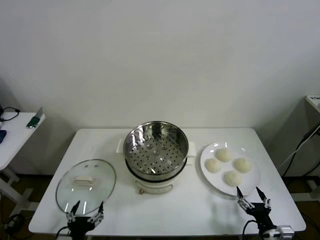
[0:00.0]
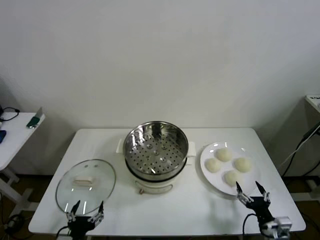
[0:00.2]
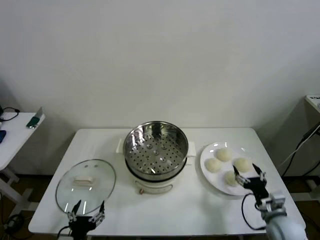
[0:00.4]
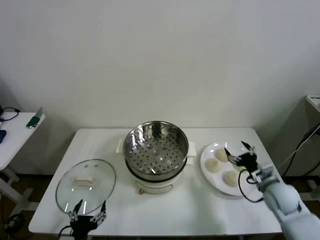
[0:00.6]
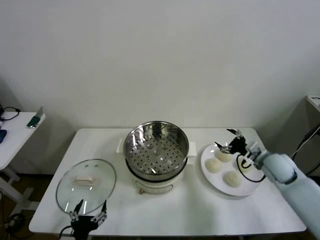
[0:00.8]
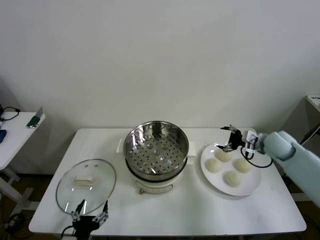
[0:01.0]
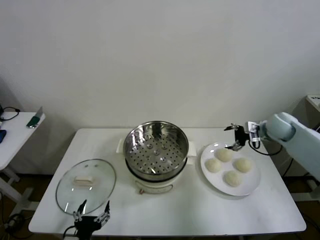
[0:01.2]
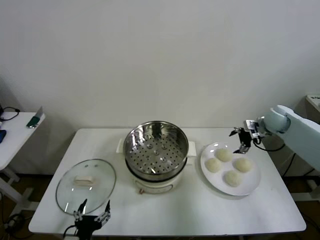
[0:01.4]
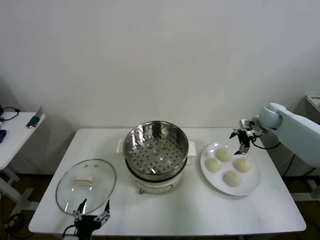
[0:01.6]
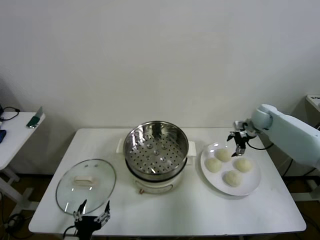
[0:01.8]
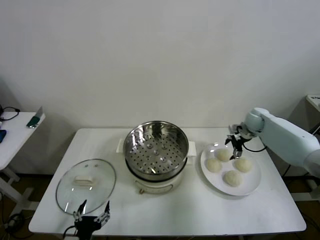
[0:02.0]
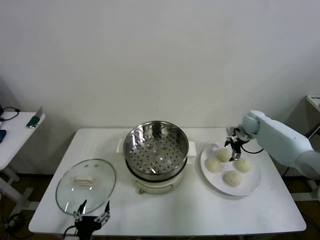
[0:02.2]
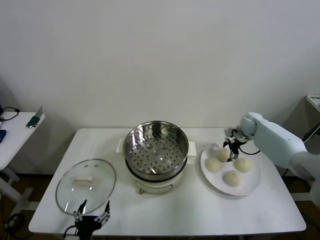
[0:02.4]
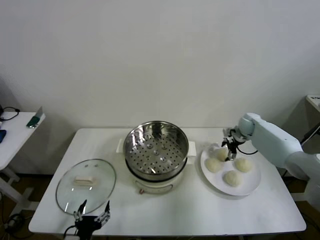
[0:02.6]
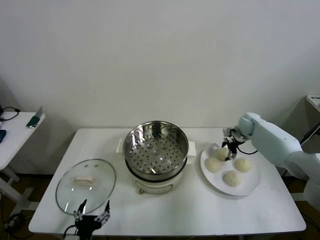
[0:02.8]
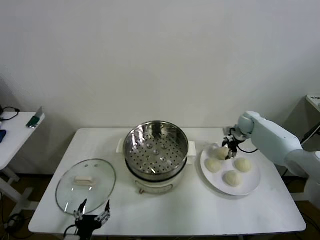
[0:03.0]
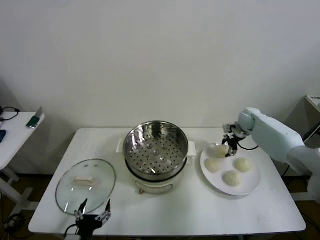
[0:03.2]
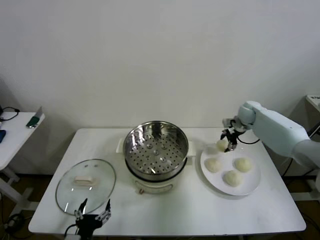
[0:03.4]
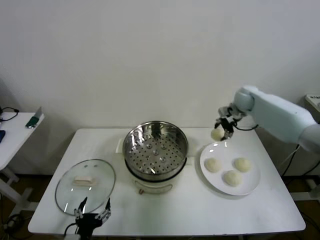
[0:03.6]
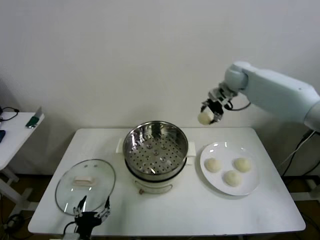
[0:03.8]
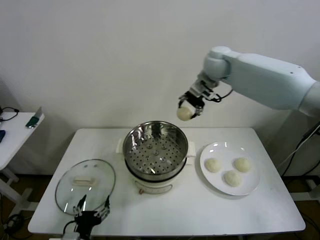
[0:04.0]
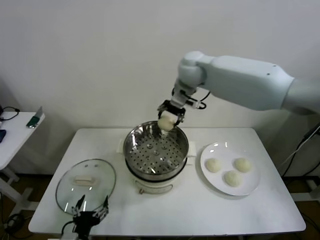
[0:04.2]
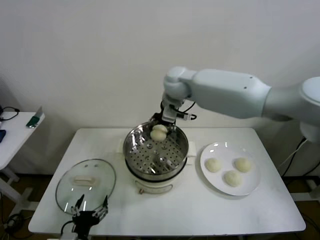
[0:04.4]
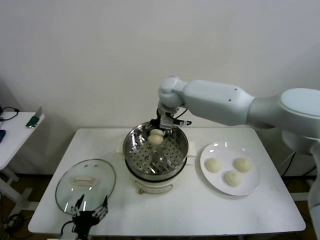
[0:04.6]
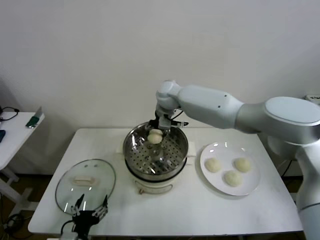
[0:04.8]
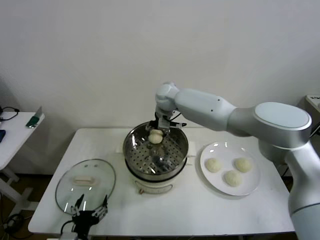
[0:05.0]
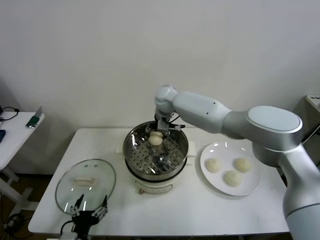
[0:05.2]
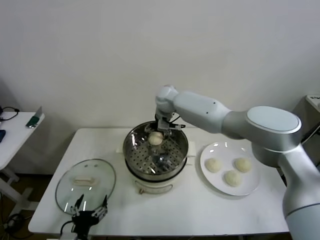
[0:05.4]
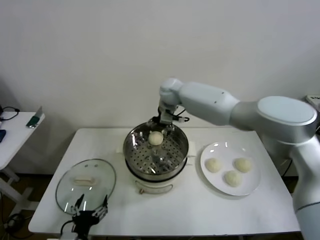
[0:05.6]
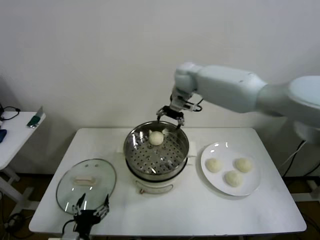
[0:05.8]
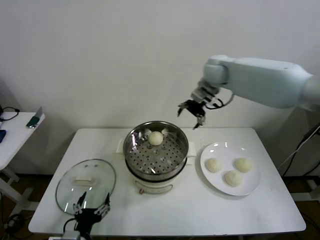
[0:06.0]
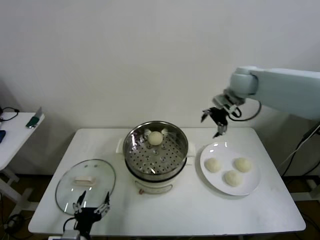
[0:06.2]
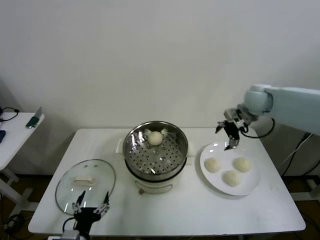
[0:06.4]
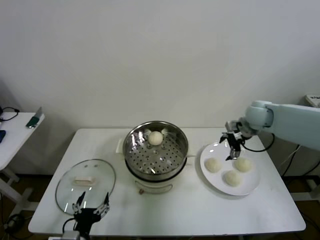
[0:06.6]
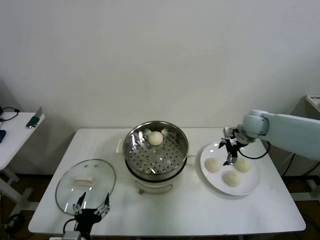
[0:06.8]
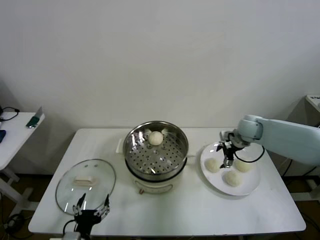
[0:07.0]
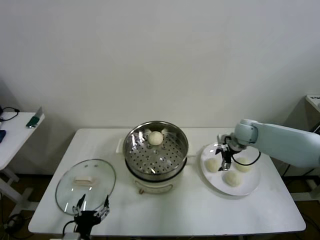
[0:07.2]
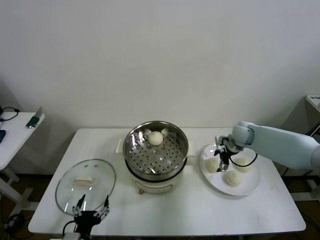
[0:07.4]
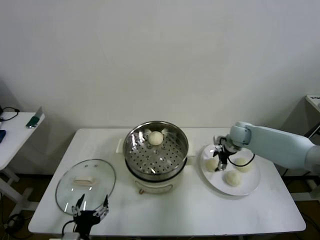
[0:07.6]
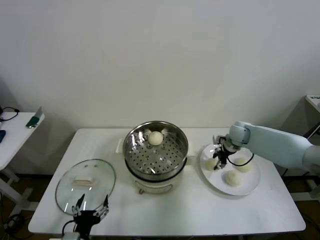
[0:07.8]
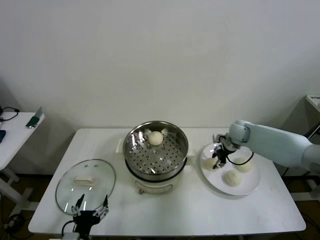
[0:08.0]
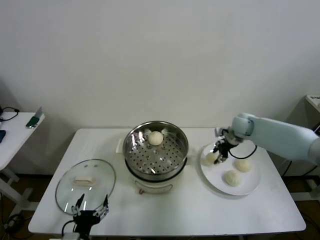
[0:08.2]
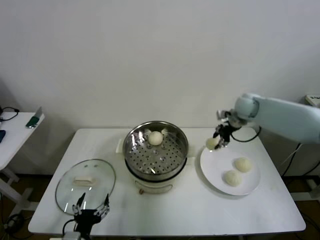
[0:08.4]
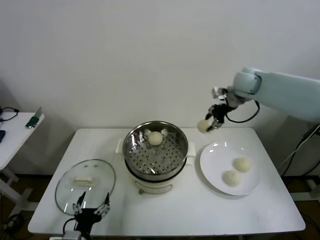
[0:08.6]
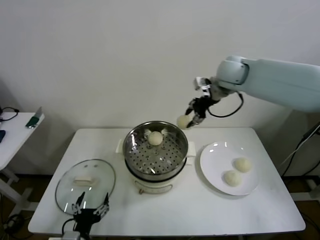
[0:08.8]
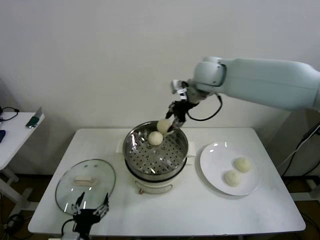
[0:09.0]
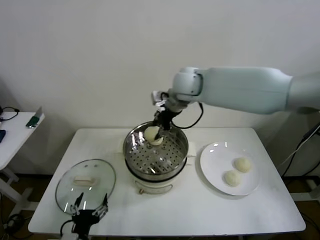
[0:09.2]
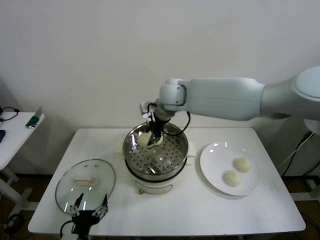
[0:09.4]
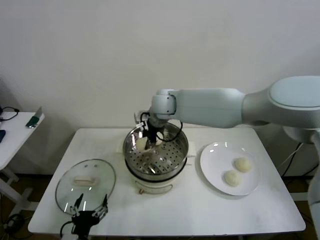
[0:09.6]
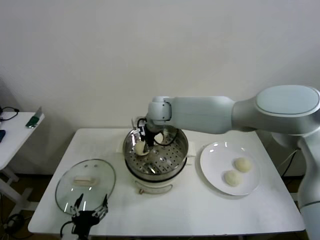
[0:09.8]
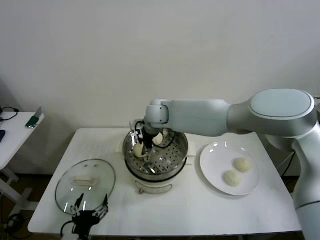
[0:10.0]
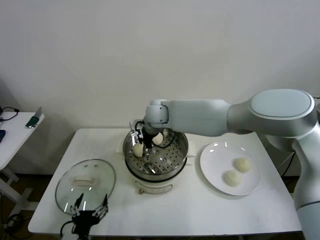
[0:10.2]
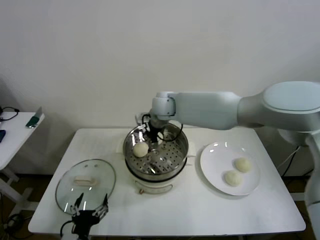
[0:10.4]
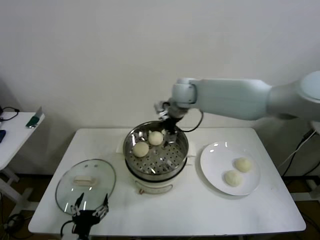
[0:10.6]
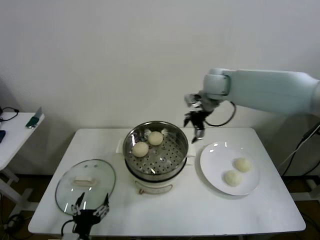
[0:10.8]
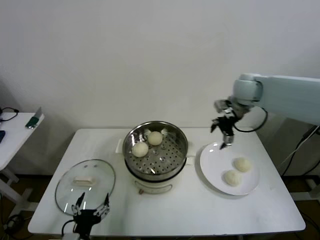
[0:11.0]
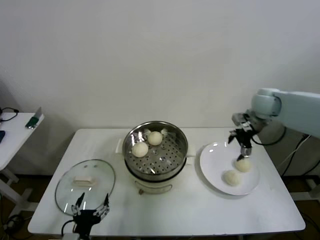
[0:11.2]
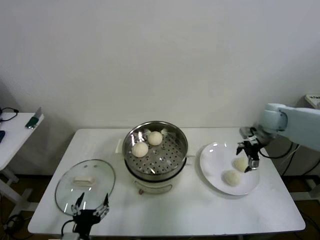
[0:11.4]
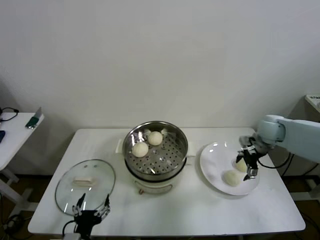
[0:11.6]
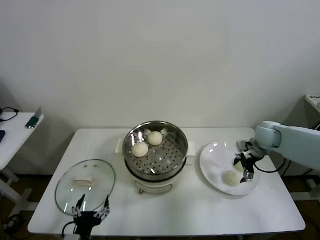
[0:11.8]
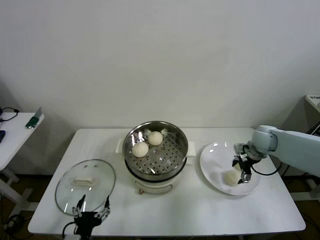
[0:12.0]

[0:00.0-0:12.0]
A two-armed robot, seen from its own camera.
Step, 0.0 to 2.8 s: Grasp the baozi in the plate with right gripper.
Step, 3.0 to 5.2 s: Place the baozi on the steamer with right gripper.
Step, 5.4 to 7.8 s: Grasp the baozi in the plate with right gripper.
Step, 8.0 to 10.2 s: Place the baozi on the steamer with right gripper.
1.6 to 3.0 s: The right gripper shifts about 5 cm downward, and closes.
3.0 to 4.4 s: The right gripper shifts roughly 40 cm to the left and upward.
4.4 to 6.0 s: The right gripper heads to the right, covering about 20 cm, and opens up.
6.0 to 7.6 s: The right gripper travels downward by roughly 25 cm, and closes up.
7.6 to 9.0 s: The right gripper heads upward and to the left, covering approximately 35 cm, and closes.
9.0 to 10.4 s: The right gripper goes some 10 cm downward and to the left, and opens.
10.4 to 12.0 s: The right gripper moves to the right and downward, approximately 40 cm.

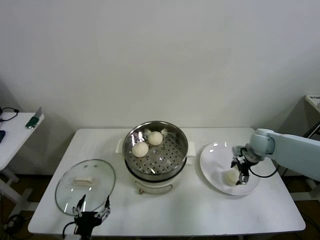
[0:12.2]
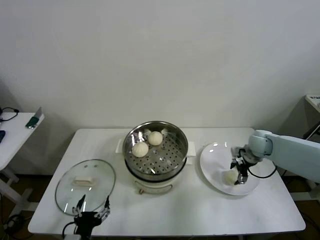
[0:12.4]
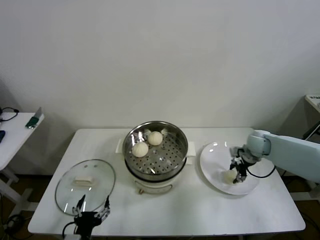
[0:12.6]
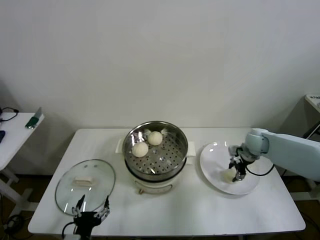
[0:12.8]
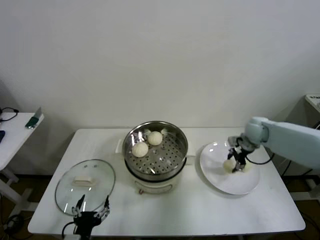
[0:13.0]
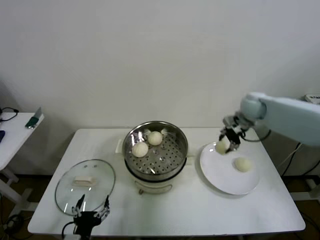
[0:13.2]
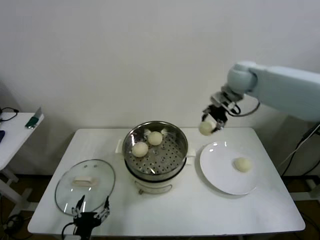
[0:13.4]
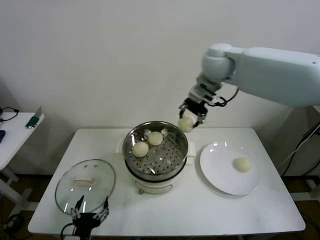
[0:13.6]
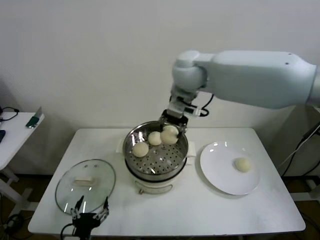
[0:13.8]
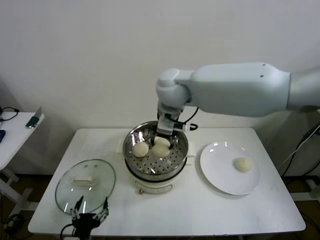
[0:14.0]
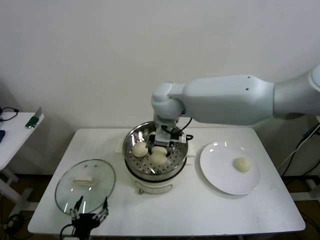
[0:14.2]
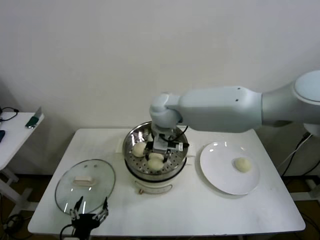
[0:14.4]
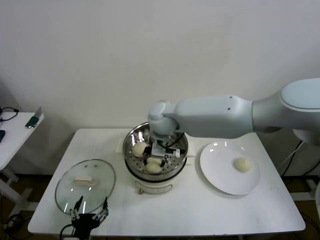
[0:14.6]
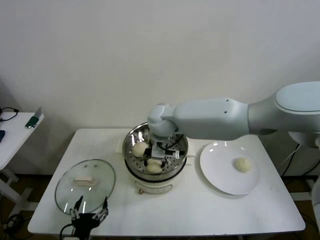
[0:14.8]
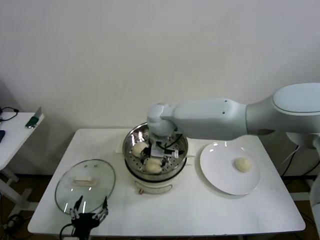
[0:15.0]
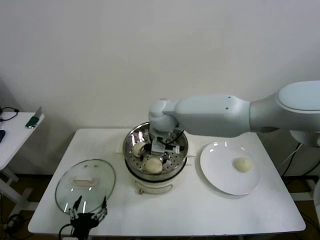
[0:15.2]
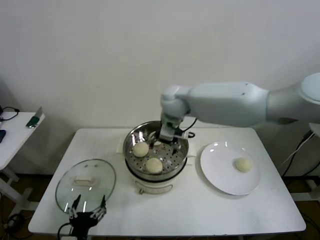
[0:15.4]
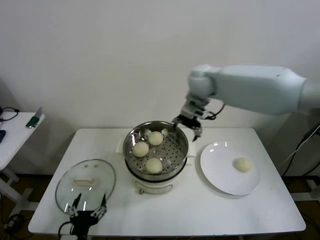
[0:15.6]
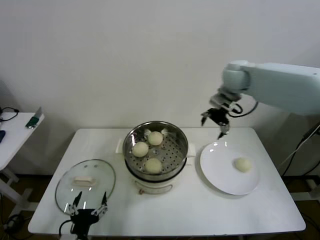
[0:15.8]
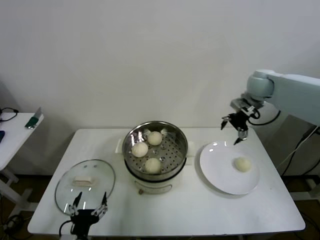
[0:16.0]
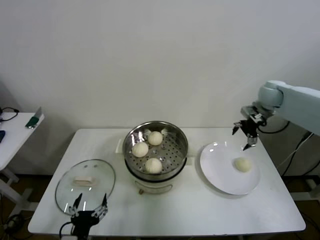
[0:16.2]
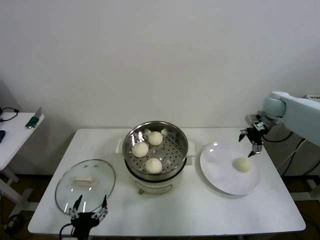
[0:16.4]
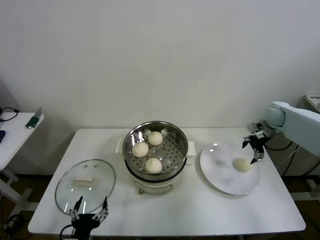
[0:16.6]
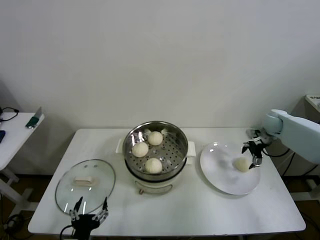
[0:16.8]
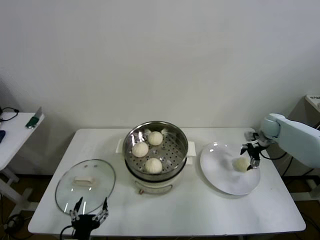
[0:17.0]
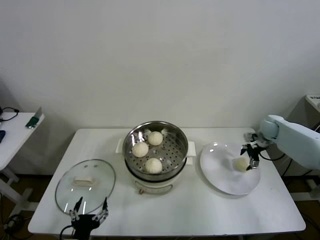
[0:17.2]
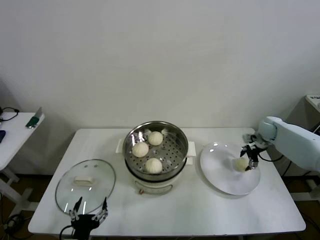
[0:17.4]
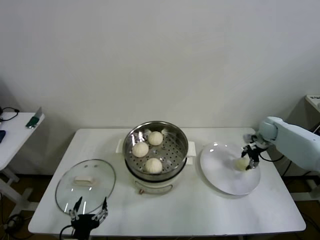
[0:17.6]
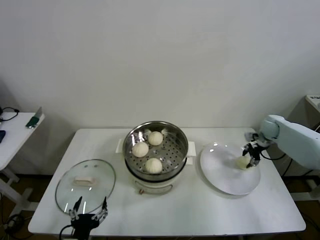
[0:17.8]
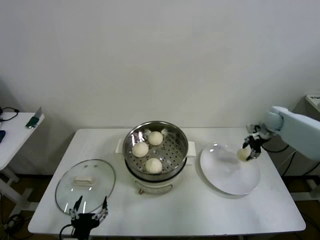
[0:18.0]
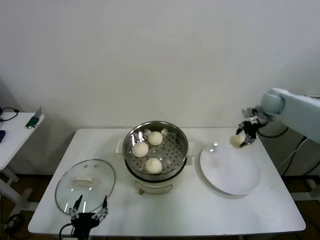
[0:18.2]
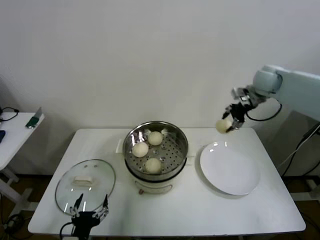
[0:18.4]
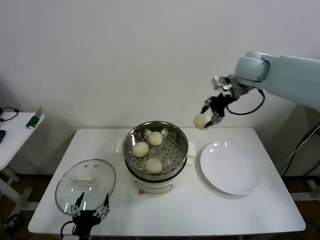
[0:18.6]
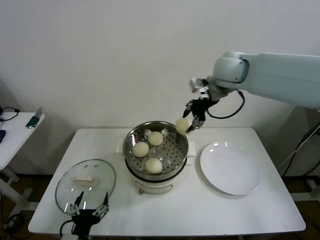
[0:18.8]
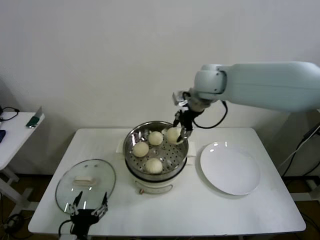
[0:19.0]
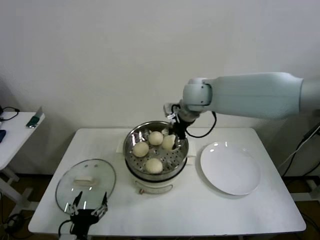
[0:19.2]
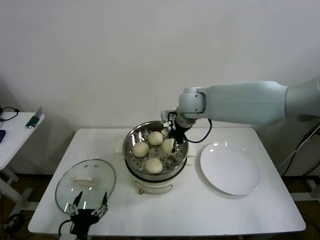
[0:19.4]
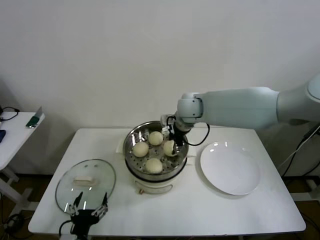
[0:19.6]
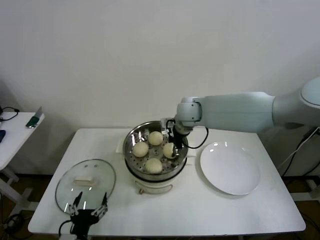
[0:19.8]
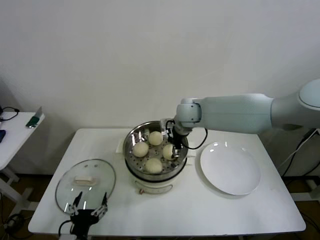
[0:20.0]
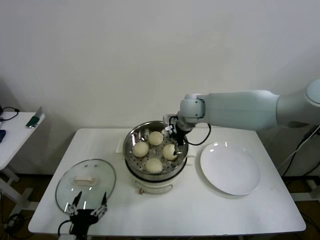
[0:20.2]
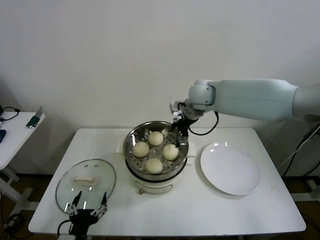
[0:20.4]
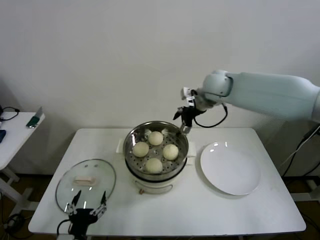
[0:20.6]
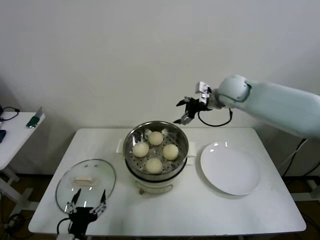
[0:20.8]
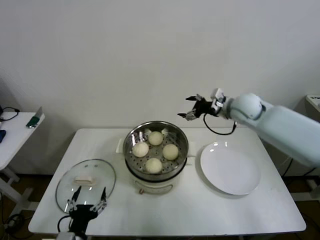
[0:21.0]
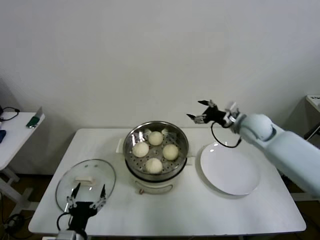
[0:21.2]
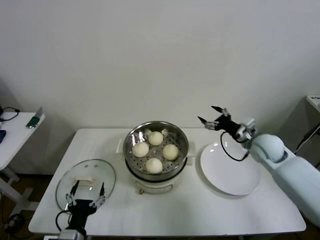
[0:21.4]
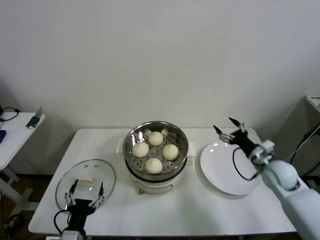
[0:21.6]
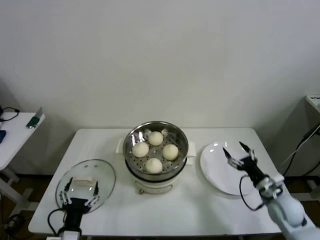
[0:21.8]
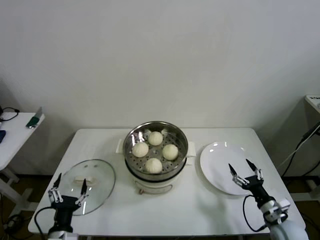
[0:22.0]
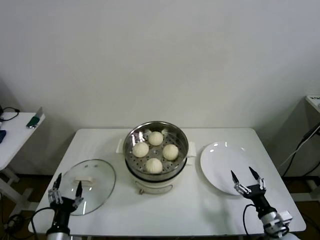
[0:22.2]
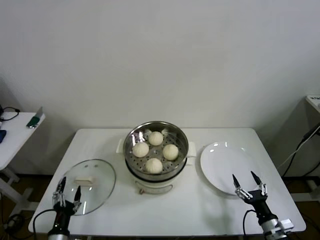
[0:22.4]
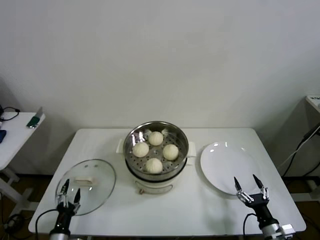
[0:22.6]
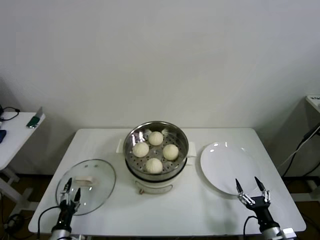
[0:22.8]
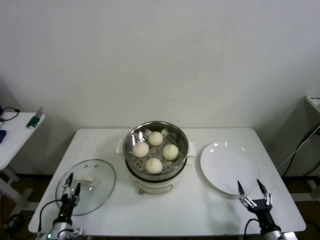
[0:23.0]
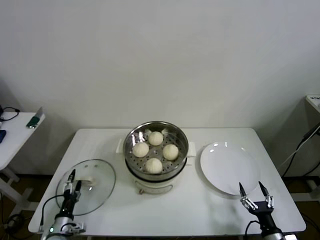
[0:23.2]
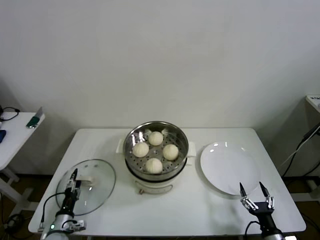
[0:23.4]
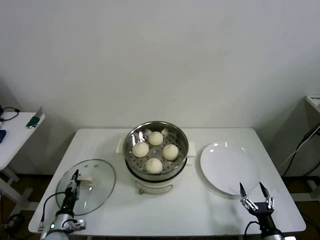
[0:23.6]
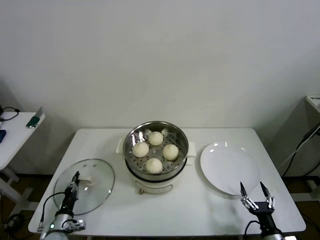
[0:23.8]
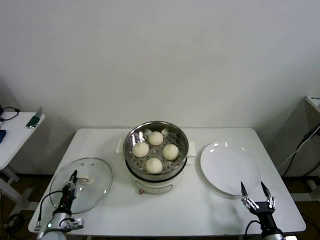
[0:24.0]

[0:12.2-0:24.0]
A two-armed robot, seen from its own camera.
Step, 12.8 to 14.8 s: Place the baozi on the steamer with right gripper.
Step, 15.2 to 17.6 s: Grasp the baozi in the plate with right gripper.
Step, 17.8 to 19.8 s: Place the baozi on the steamer with right gripper.
Step, 20.2 to 23.8 s: Grasp the pot lid with left gripper.
12.2 to 13.6 s: The right gripper moves upward and to the left, roughly 40 cm, and closes.
13.6 to 15.2 s: The right gripper heads downward and to the left, covering about 20 cm, and opens.
15.2 to 16.6 s: The right gripper heads to the right, covering some 40 cm.
16.6 to 18.2 s: The right gripper is displaced upward by about 5 cm, and closes.
18.2 to 19.6 s: The right gripper moves to the left, about 30 cm.
19.6 to 21.0 s: The right gripper heads to the right, covering about 20 cm, and opens.
21.0 to 22.6 s: The right gripper is displaced backward and downward by about 50 cm. Meanwhile the left gripper is displaced downward and to the left by about 15 cm.
22.6 to 24.0 s: The left gripper travels forward by approximately 5 cm, and closes its fingers.
